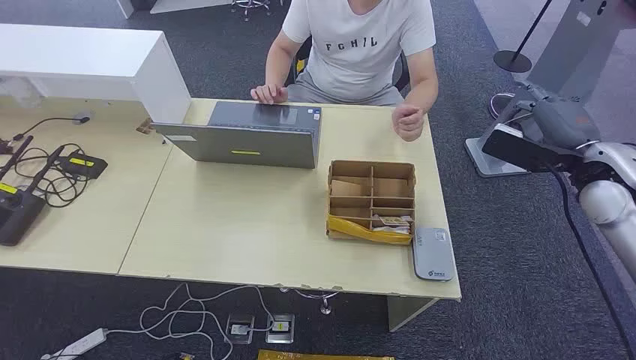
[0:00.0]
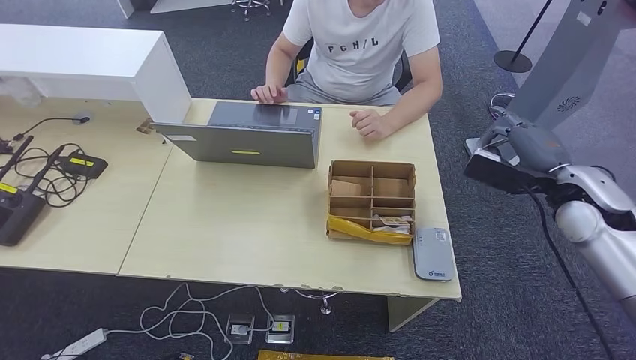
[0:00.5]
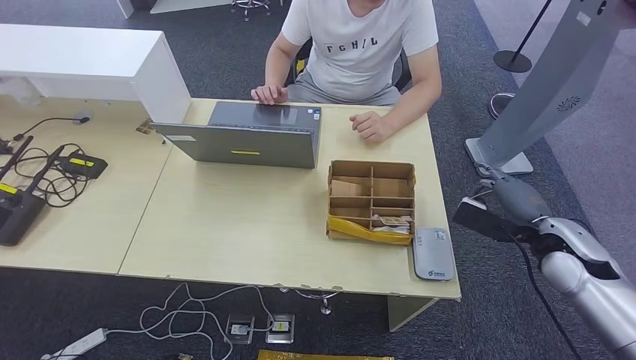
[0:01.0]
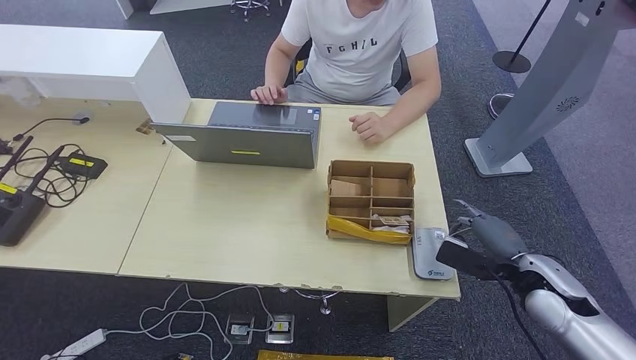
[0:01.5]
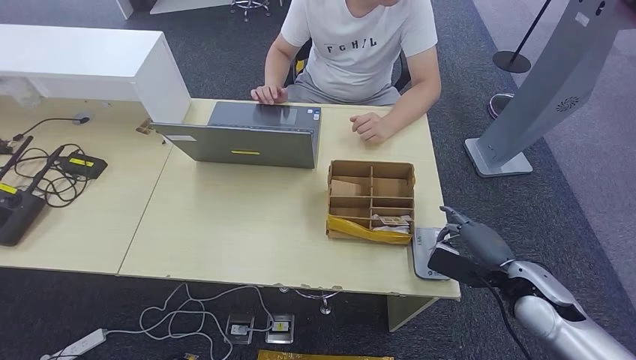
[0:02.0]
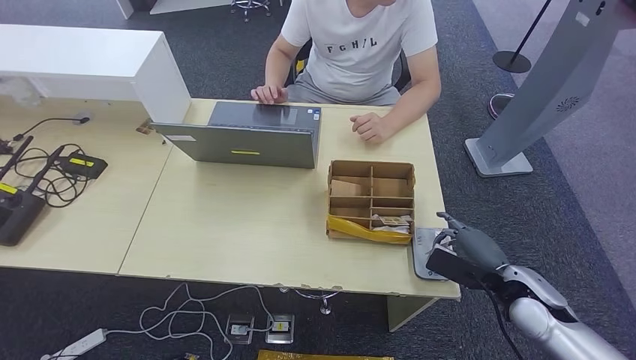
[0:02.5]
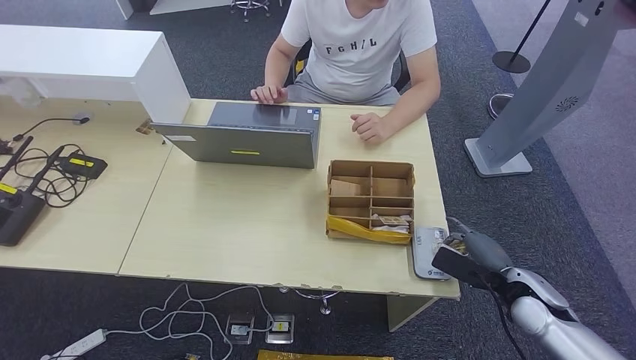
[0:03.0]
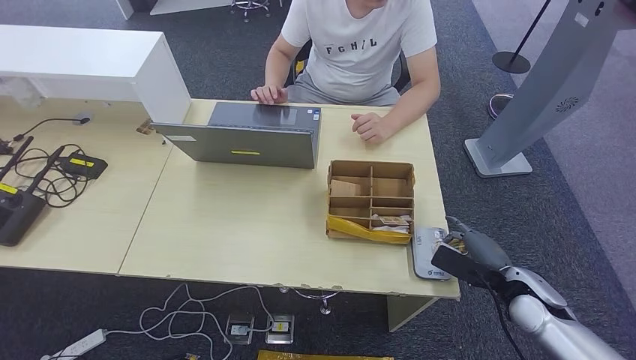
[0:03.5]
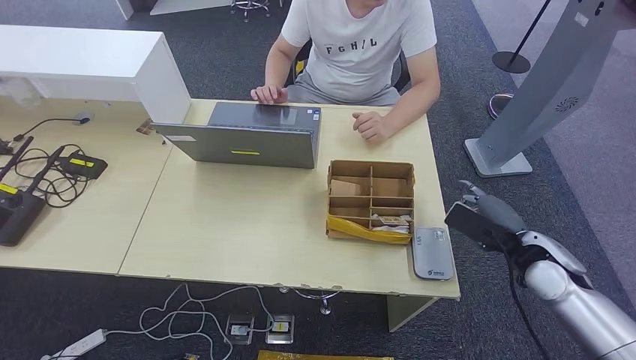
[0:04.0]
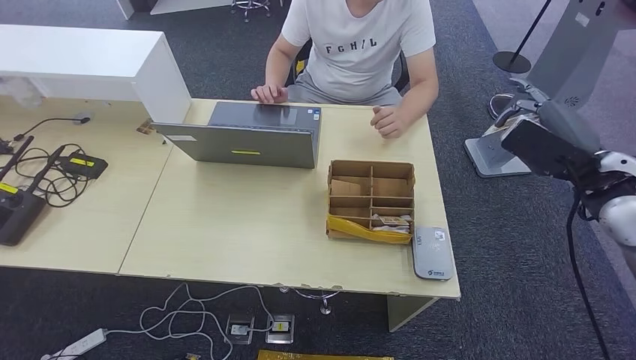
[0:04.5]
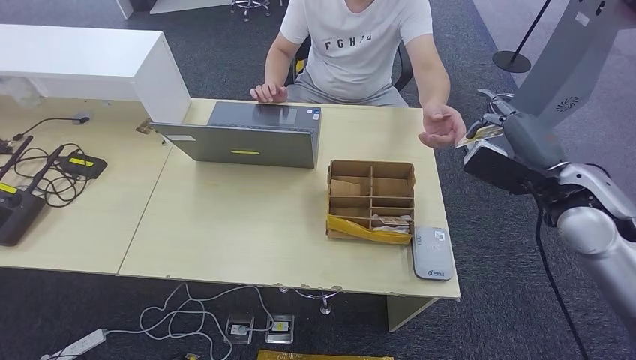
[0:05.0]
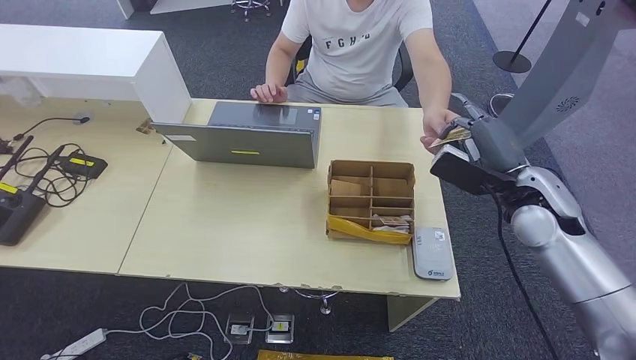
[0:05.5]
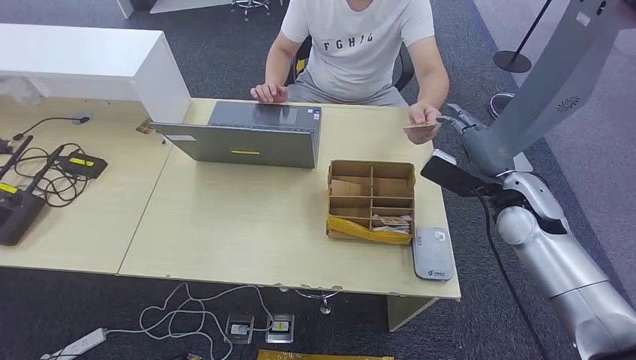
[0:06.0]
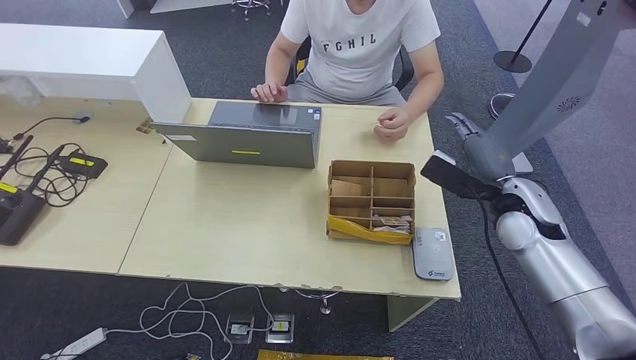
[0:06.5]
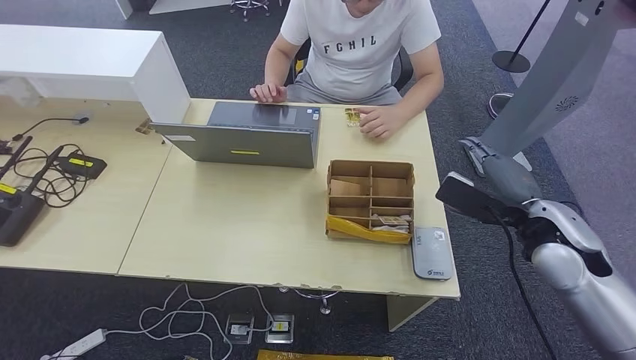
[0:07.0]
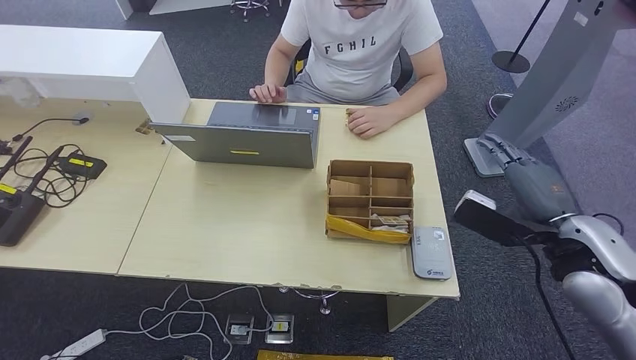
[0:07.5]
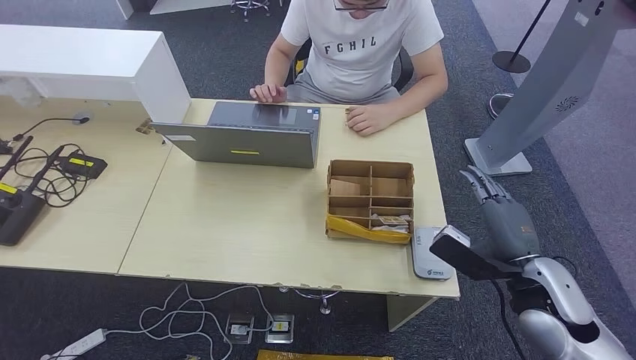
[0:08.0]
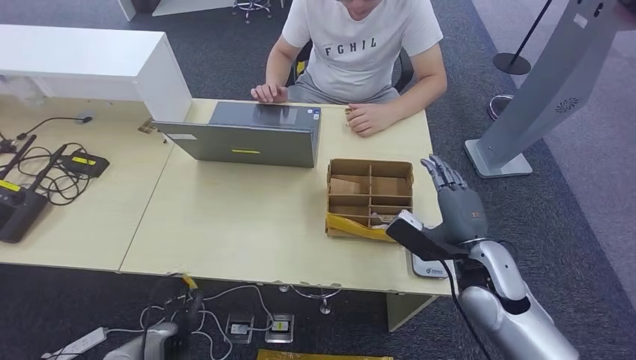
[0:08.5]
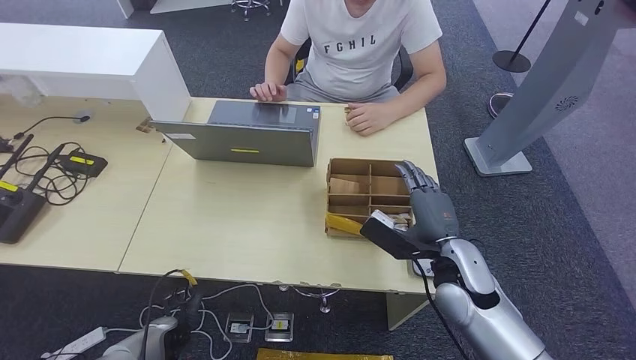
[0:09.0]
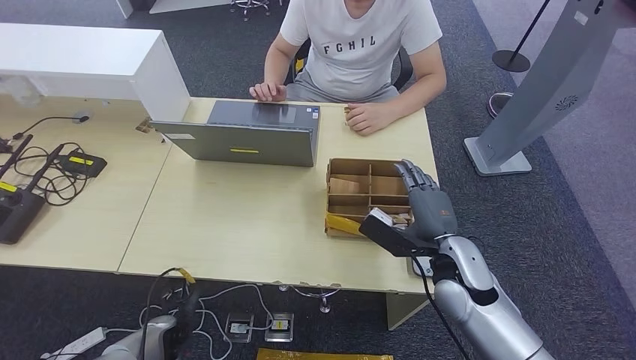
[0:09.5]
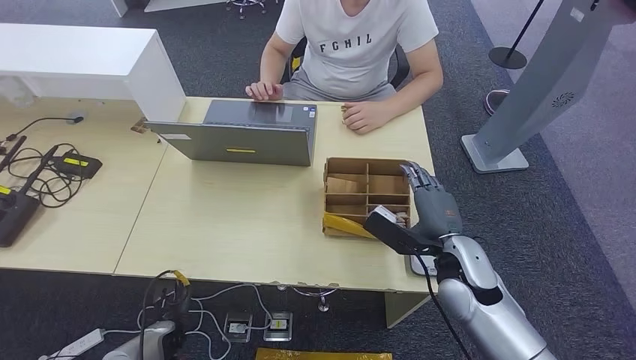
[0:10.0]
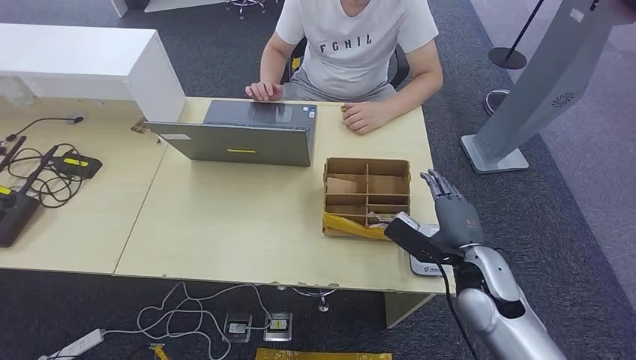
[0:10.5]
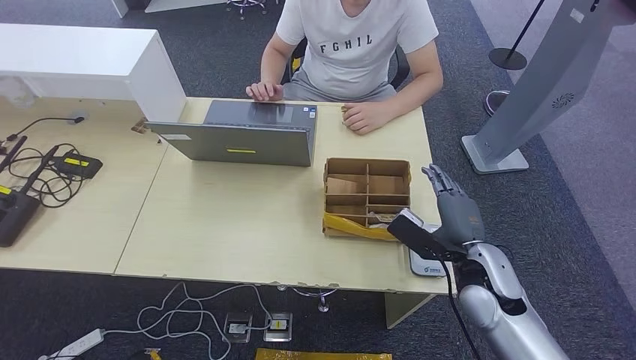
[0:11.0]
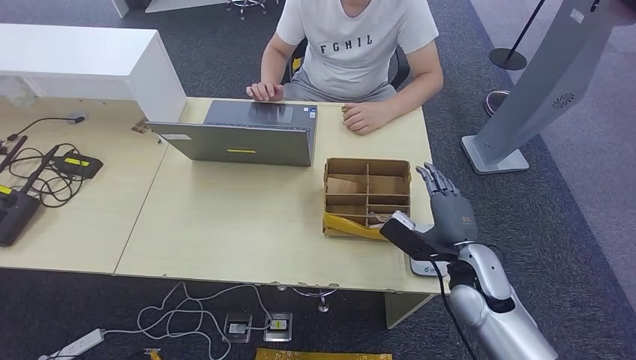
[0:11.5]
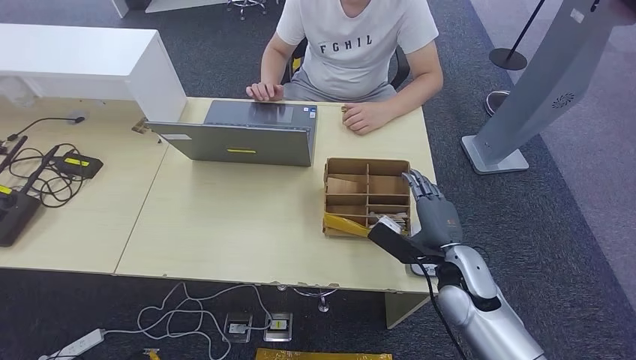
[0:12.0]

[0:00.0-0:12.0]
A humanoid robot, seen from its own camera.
Step, 0:00.0 to 0:00.5: Take the ID card from the person's hand.
Step, 0:01.0 to 0:04.5: Place the ID card on the card reader.
Step, 0:05.5 to 0:09.0: Hand the ID card to the person.
0:02.0 to 0:04.0: The hands make only small movements.
0:04.0 to 0:06.0: The right hand moves upward and forward, roughly 10 cm.
0:06.0 to 0:08.0: The right hand heads backward, covering about 15 cm.
0:08.0 to 0:10.0: The left hand goes roughly 15 cm forward, while the right hand heads to the left and forward, covering some 10 cm.
0:10.0 to 0:12.0: The left hand travels backward by roughly 15 cm.

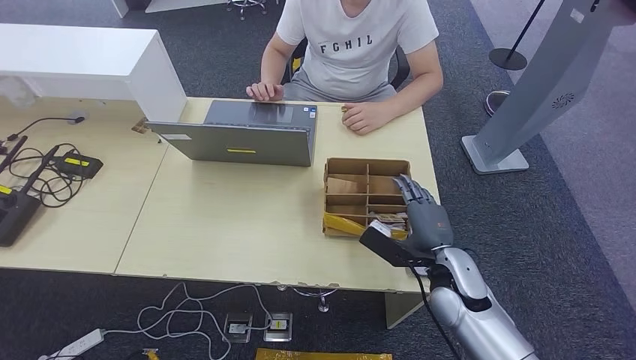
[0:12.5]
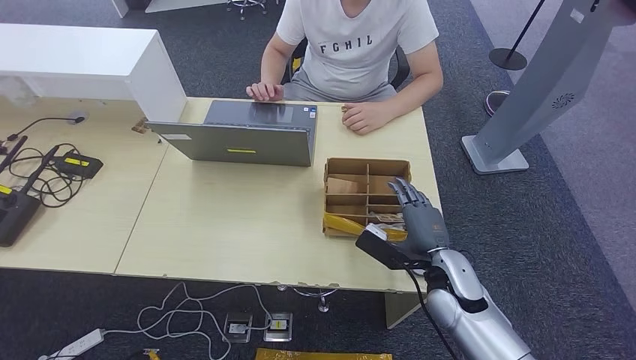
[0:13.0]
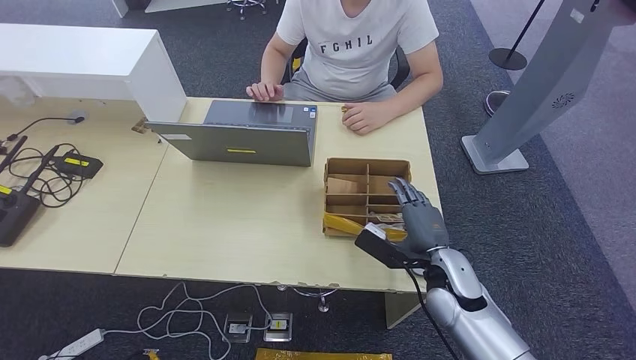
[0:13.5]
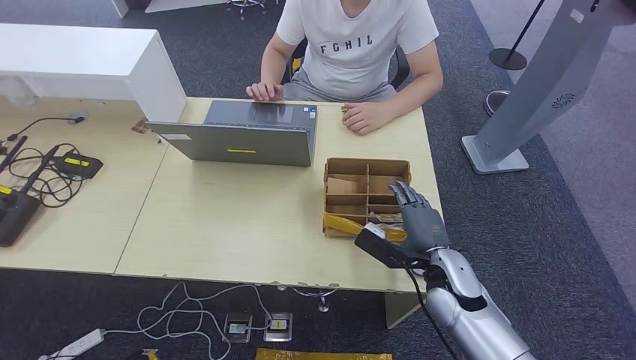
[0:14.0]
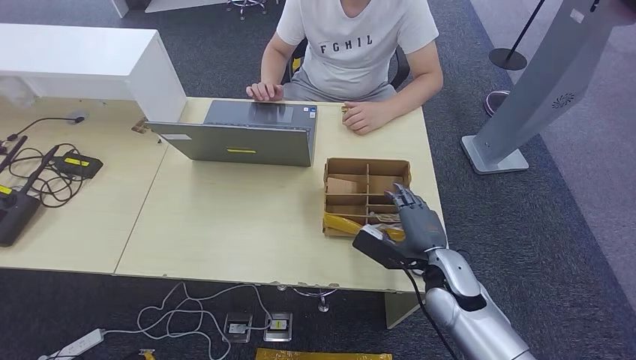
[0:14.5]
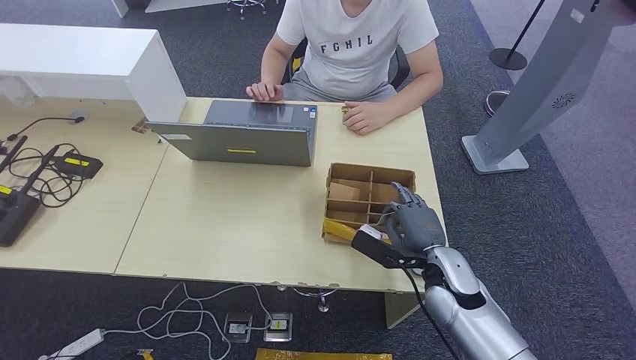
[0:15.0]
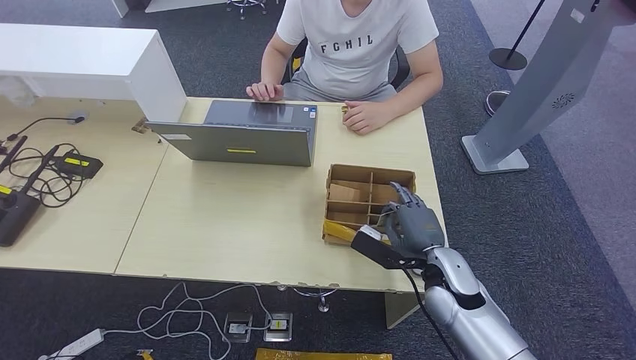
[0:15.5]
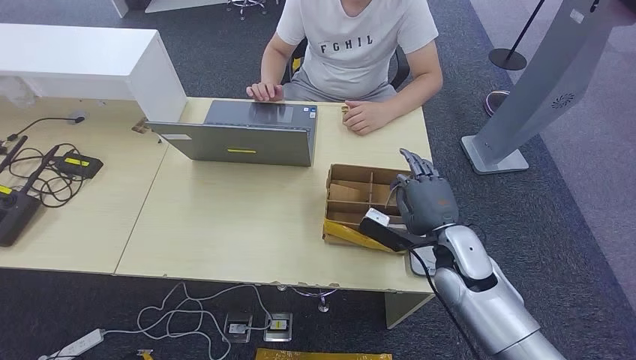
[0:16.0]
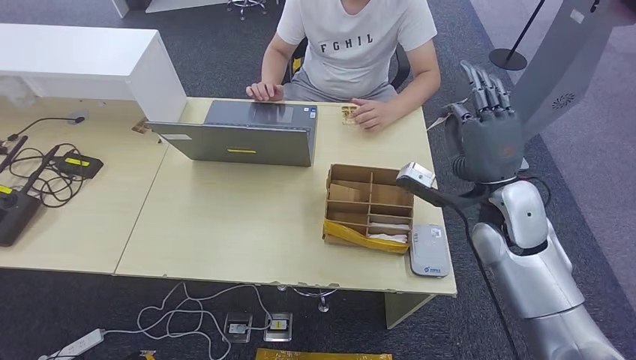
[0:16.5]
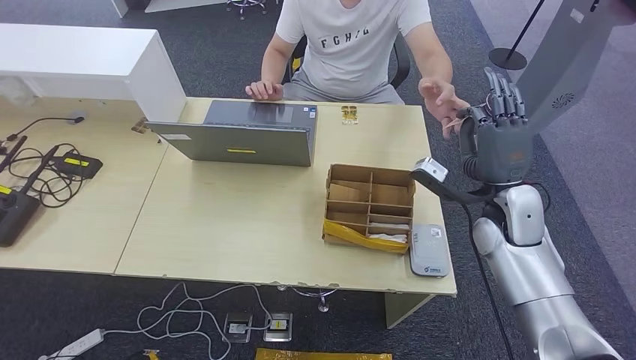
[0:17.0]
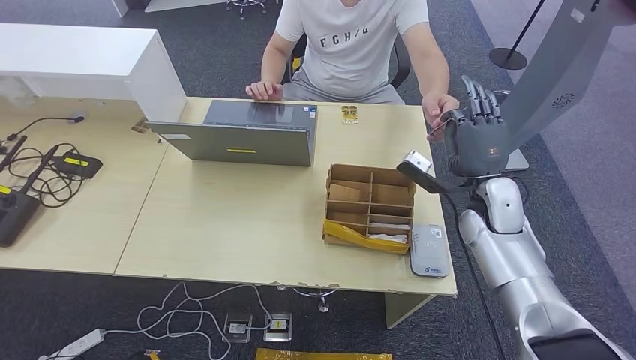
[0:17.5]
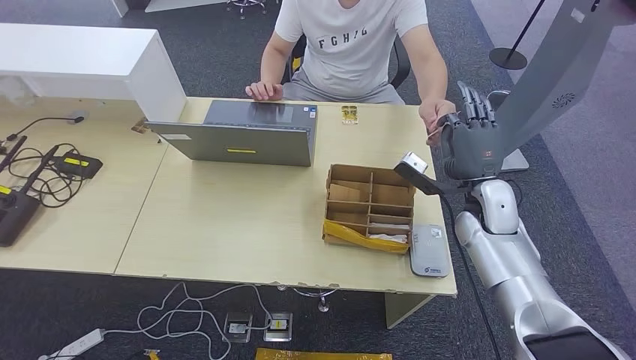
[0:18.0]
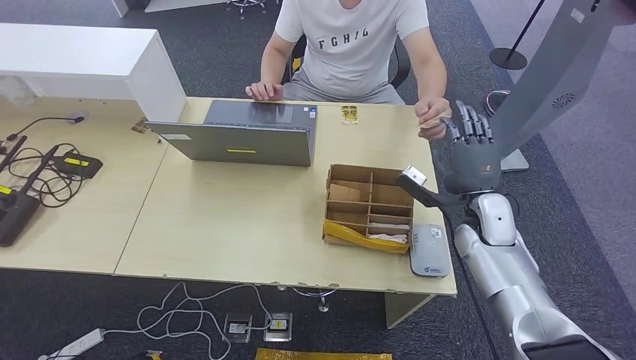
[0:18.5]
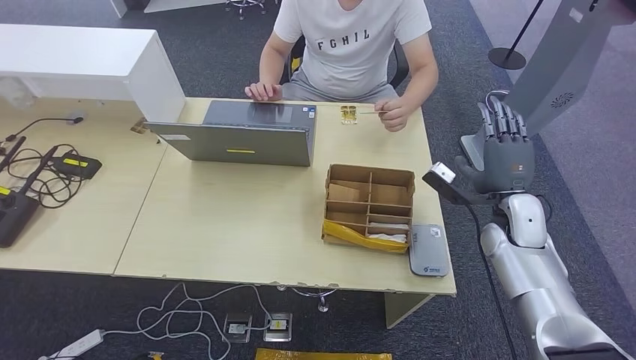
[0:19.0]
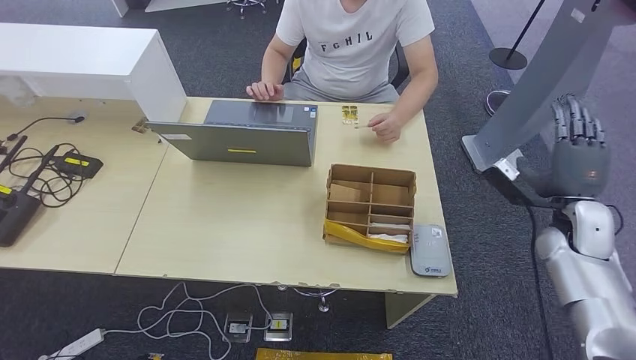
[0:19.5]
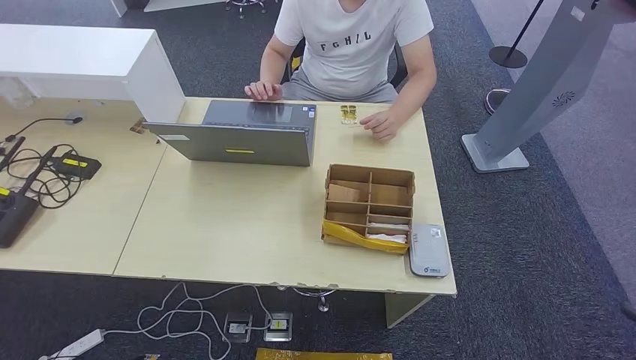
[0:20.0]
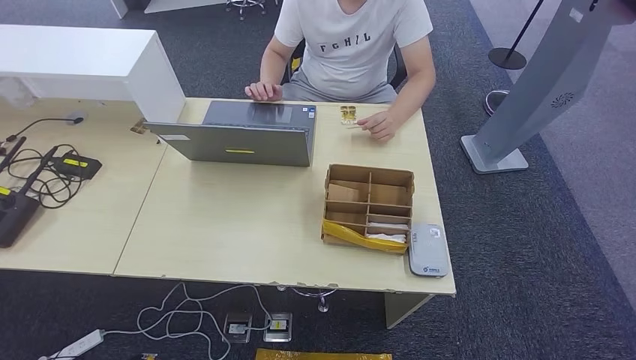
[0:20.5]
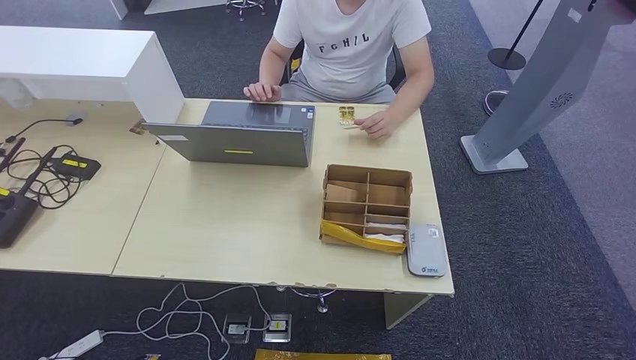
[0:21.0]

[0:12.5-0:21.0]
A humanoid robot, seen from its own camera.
Step, 0:12.5 to 0:16.0: Pick up the room key from the key card box.
Step, 0:16.5 to 0:21.0: Hand the room key to the person.
0:12.5 to 0:14.5: There are only small adjustments of the hands.
0:14.5 to 0:16.5: The right hand is displaced upward by roughly 15 cm.
0:16.5 to 0:19.0: The right hand is displaced downward and to the right by approximately 10 cm.
0:19.0 to 0:21.0: The right hand goes approximately 40 cm backward and downward.
